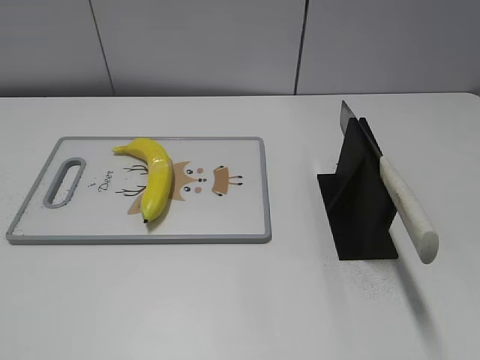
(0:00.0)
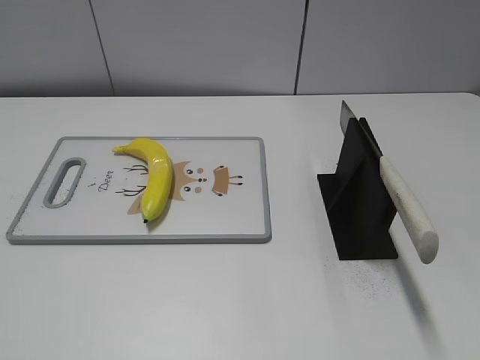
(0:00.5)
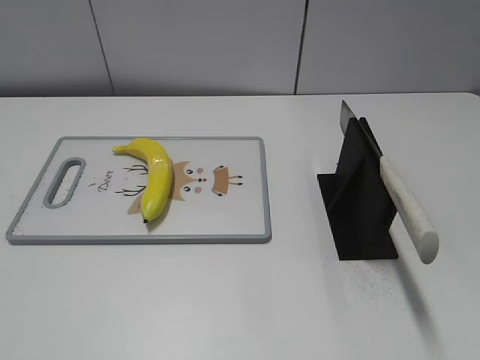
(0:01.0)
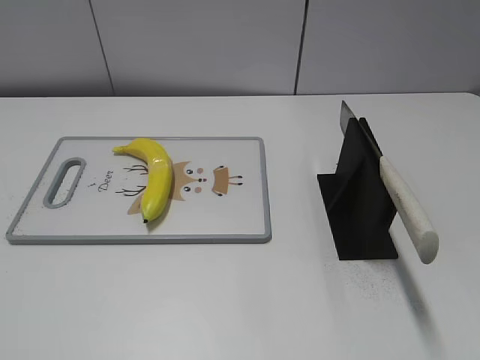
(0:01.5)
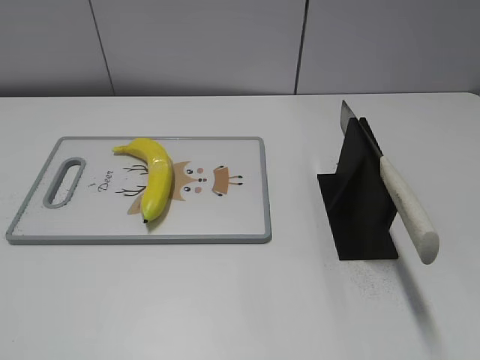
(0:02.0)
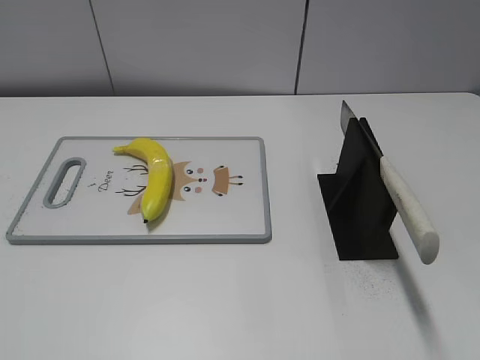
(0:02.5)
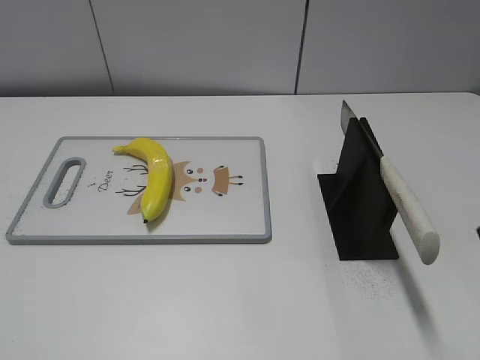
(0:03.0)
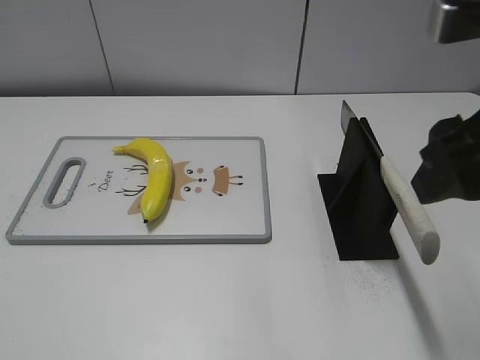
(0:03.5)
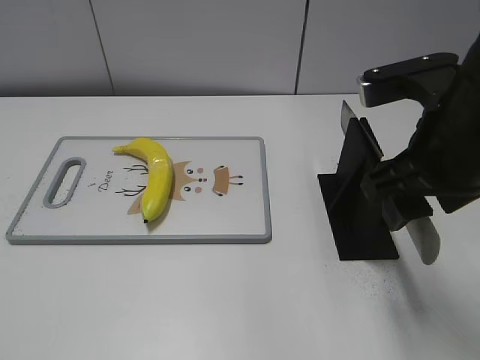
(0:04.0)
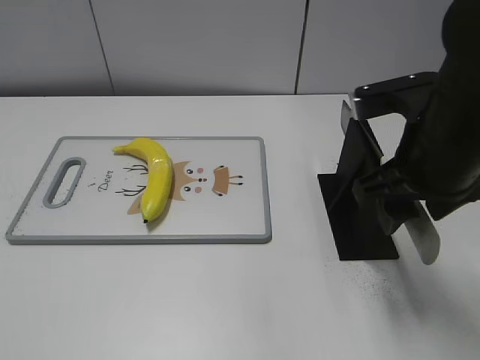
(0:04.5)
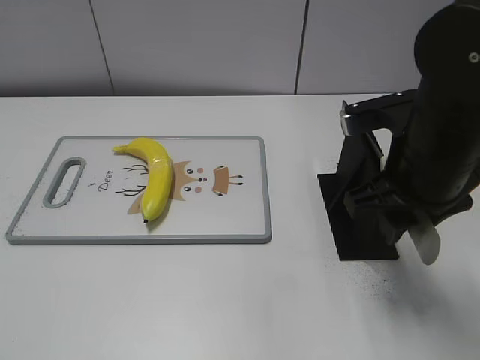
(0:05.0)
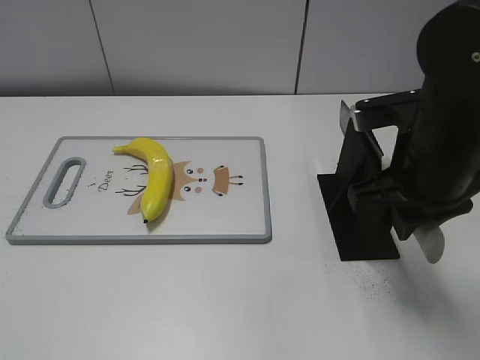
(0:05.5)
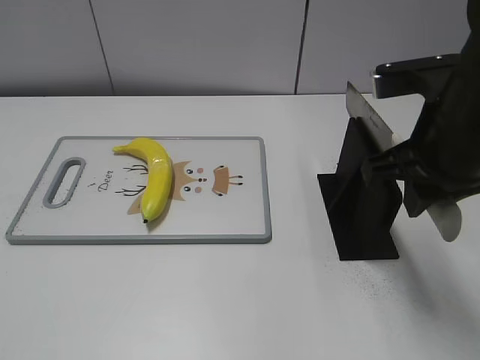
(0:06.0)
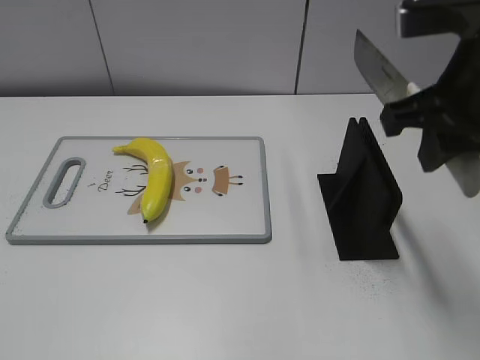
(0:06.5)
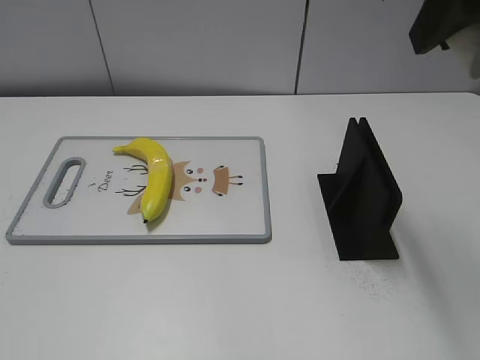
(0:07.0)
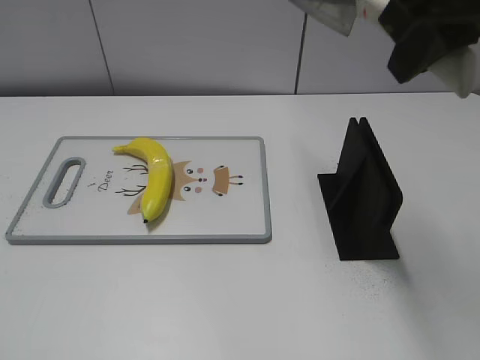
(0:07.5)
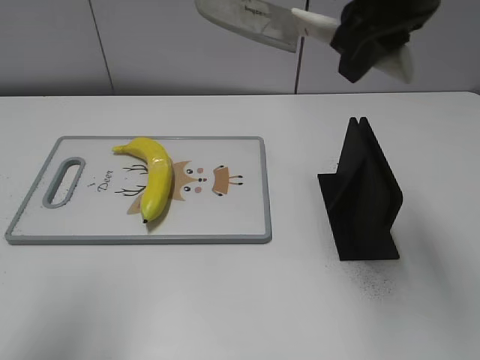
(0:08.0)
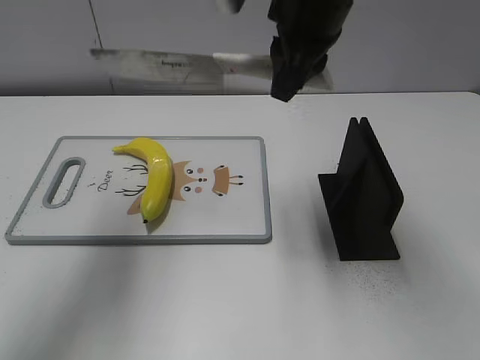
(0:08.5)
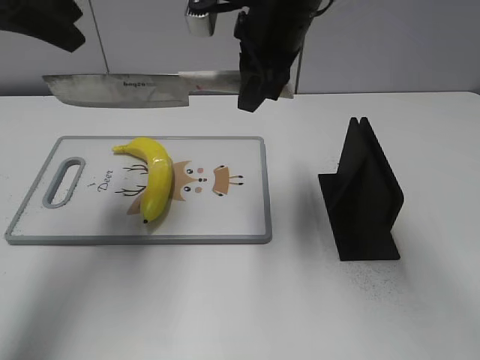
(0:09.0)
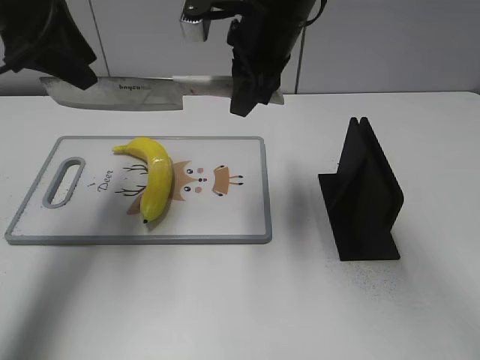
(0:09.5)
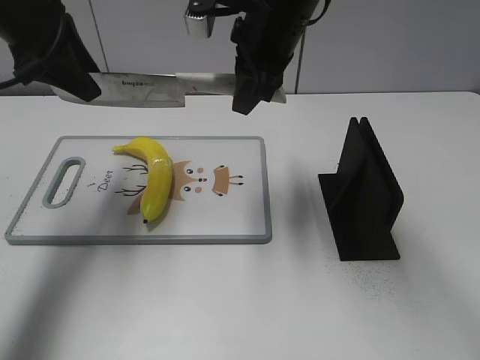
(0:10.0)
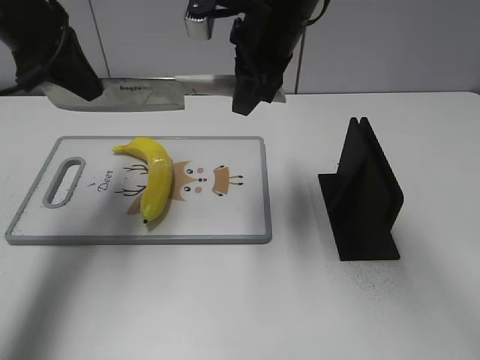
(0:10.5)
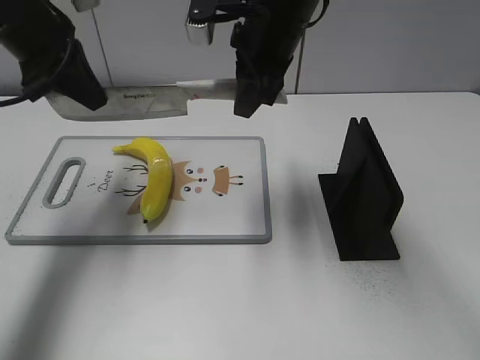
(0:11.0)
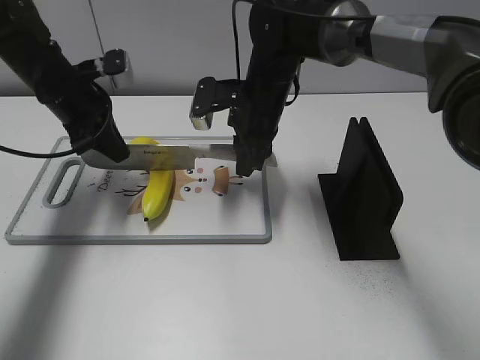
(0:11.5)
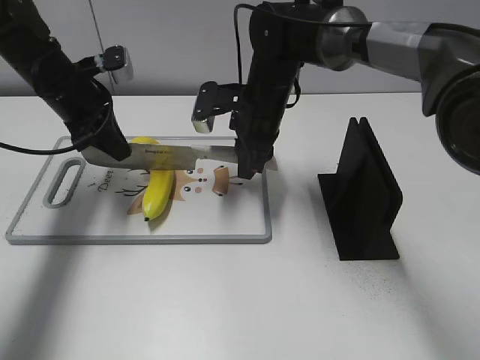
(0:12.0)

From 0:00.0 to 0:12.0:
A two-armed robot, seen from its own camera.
Task of the whole recording: cut plastic banana.
Step, from 0:00.0 to 0:06.5: Grab the knife handle with your right hand.
From 0:02.0 to 0:04.0: The right gripper goes roughly 25 cm forward and to the left.
From 0:04.0 to 0:06.0: The right gripper closes up.
From 0:06.0 to 0:08.0: The left gripper goes roughly 25 cm forward and upward. Meanwhile the right gripper goes about 15 cm upward, forward and to the left.
From 0:08.0 to 0:10.0: The left gripper shifts roughly 25 cm forward and downward. Meanwhile the right gripper is displaced forward, downward and to the left by some 15 cm.
From 0:10.0 to 0:12.0: The two grippers go approximately 15 cm downward. The left gripper closes.

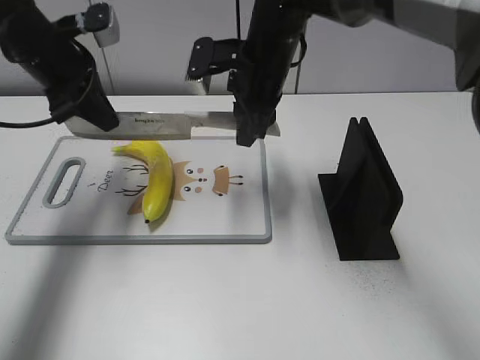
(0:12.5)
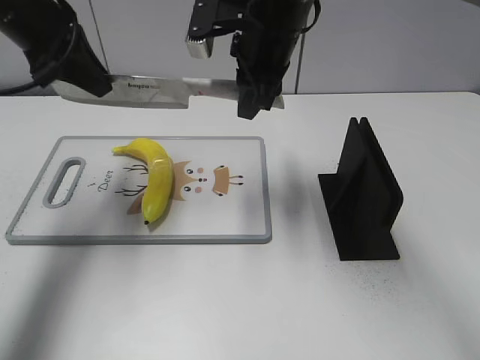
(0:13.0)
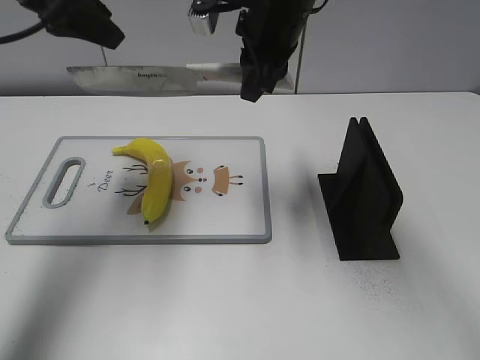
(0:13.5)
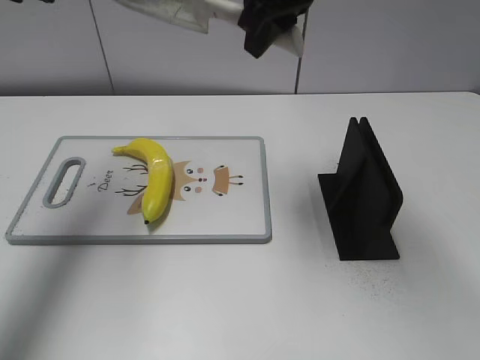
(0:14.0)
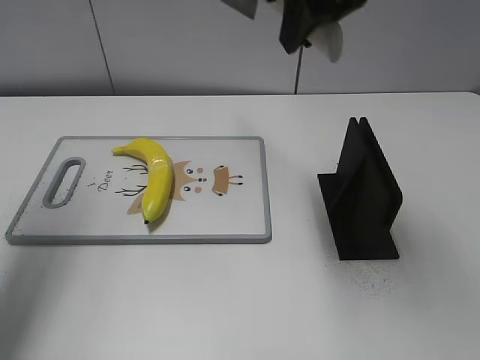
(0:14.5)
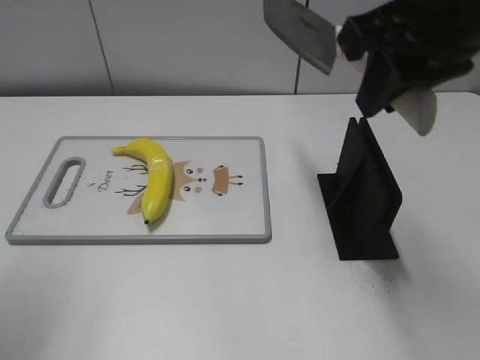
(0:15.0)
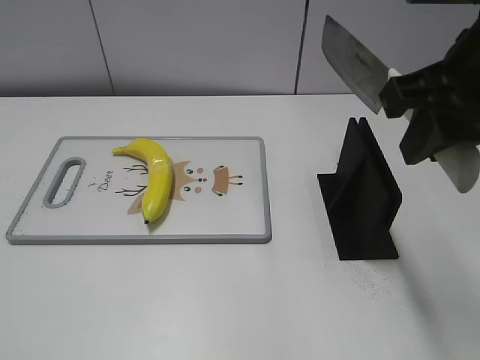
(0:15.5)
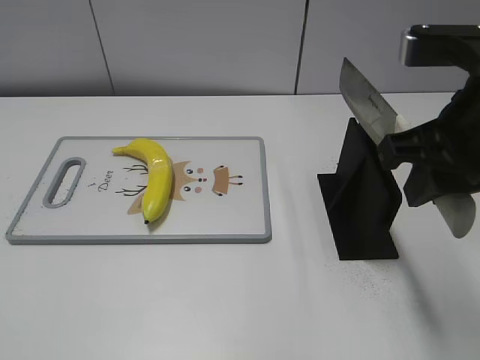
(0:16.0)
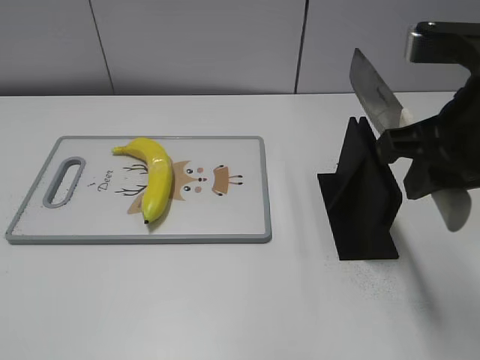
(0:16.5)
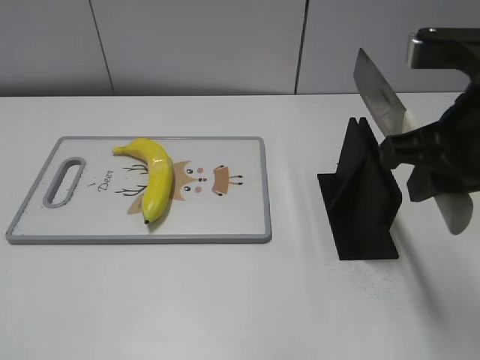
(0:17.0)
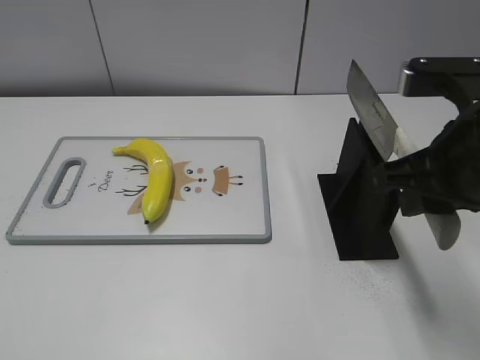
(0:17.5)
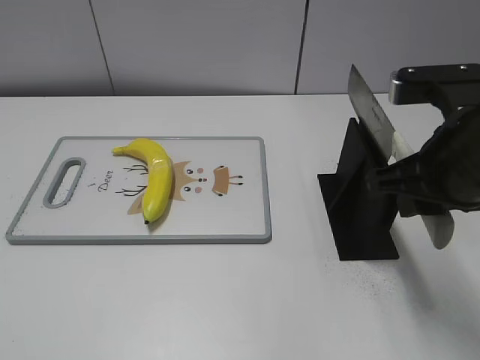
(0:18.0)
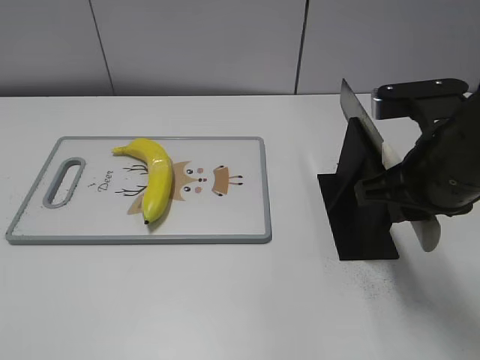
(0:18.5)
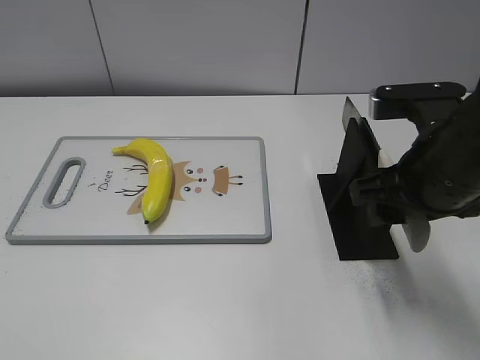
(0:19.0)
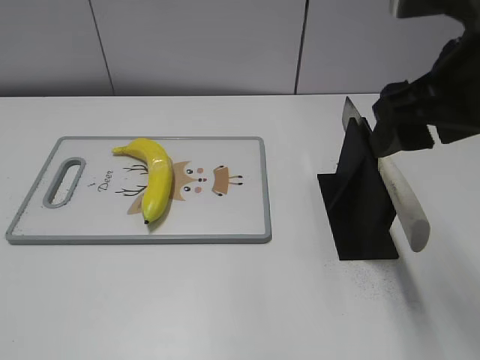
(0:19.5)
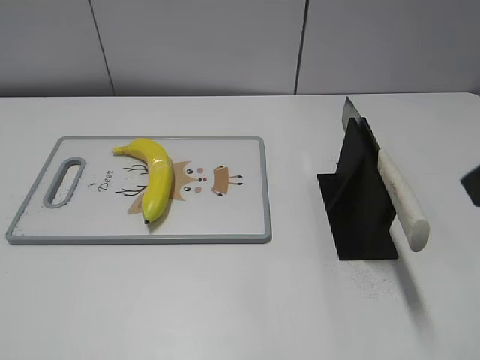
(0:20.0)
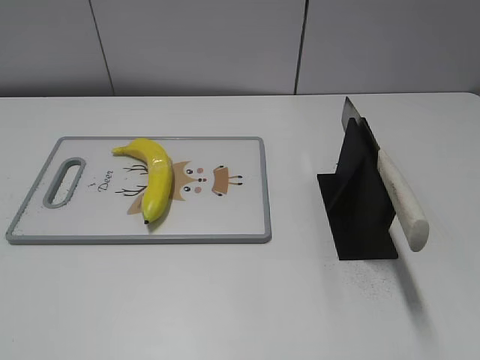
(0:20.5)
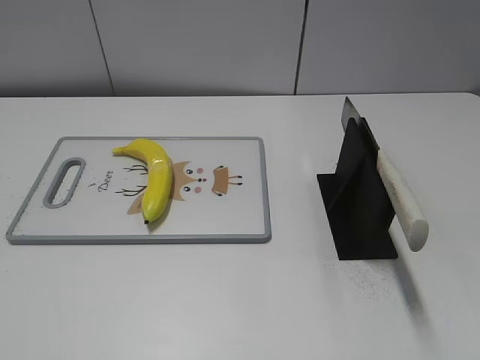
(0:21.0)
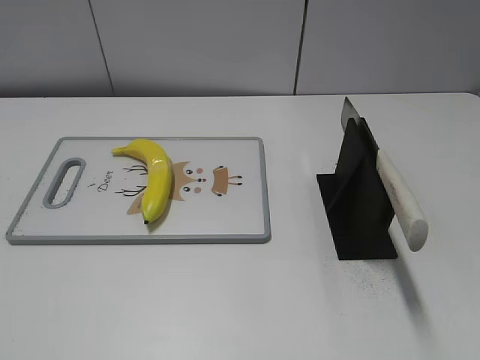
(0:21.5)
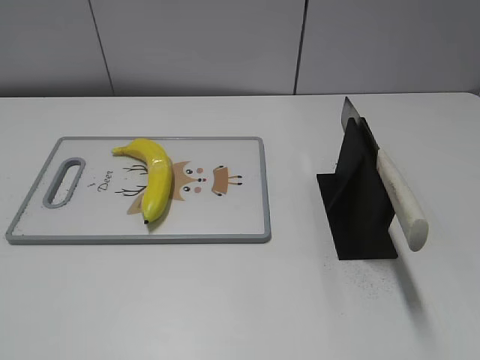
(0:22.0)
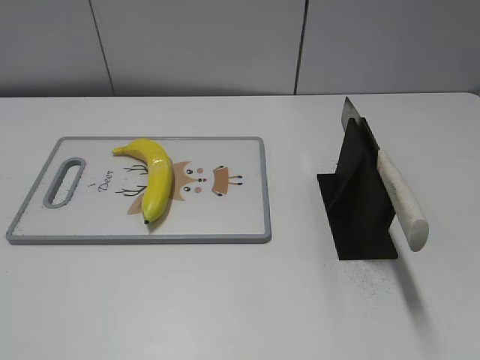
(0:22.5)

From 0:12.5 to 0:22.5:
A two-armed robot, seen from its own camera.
Task of the whole recording: cut plastic banana.
Step, from 0:13.0 to 0:14.0: Cut the banana with your right hand.
Step, from 0:14.5 to 0:16.0: Lift the knife with your right hand.
Step, from 0:16.5 to 0:22.5: Place the knife on the storage rack with your right hand.
From 0:12.5 to 0:14.5: The right gripper heads upward and backward, covering roughly 20 cm; the left gripper shifts about 20 cm upward, backward and to the left, and opens.
From 0:14.5 to 0:16.5: The left gripper heads backward and downward, covering approximately 35 cm; the right gripper is displaced backward, to the right and downward by approximately 15 cm.
From 0:16.5 to 0:18.5: The right gripper is displaced downward by roughly 5 cm.
From 0:18.5 to 0:20.5: The right gripper heads backward, to the right and upward, covering roughly 20 cm, and opens up.
